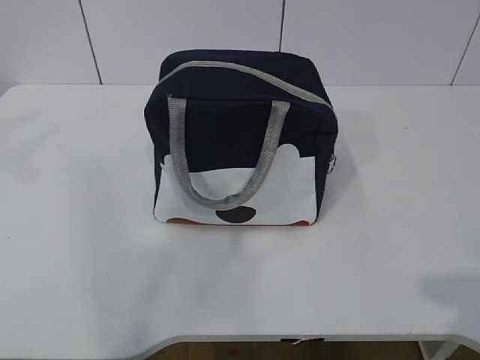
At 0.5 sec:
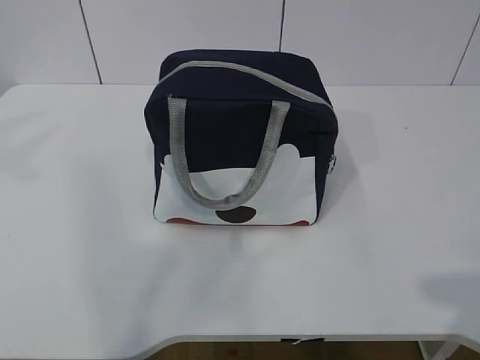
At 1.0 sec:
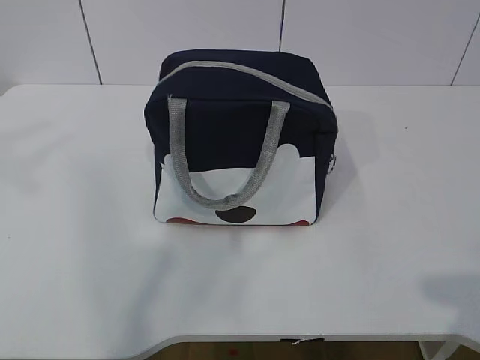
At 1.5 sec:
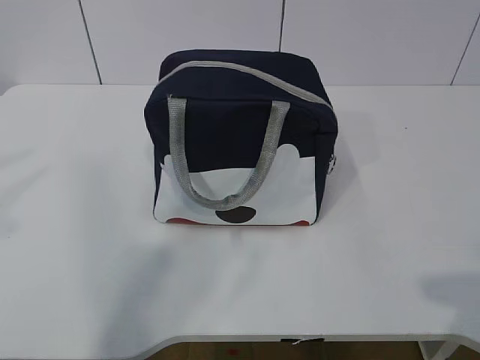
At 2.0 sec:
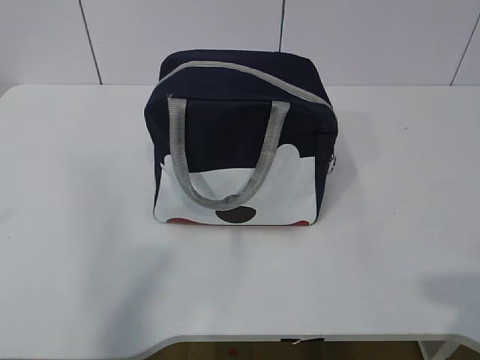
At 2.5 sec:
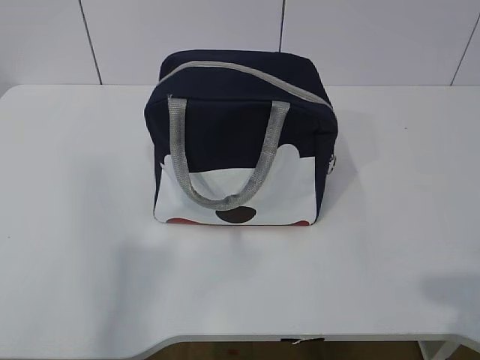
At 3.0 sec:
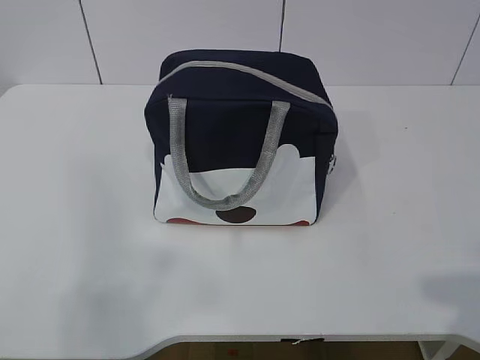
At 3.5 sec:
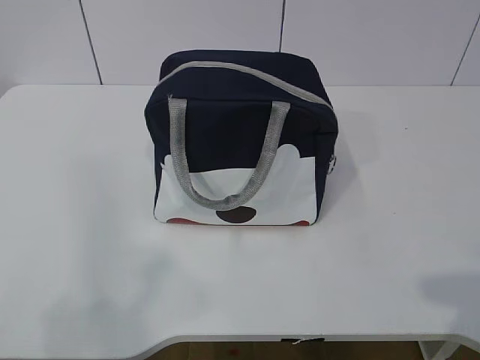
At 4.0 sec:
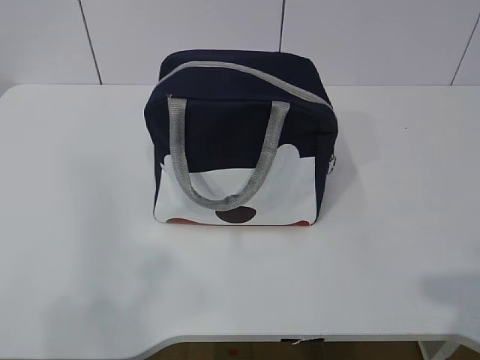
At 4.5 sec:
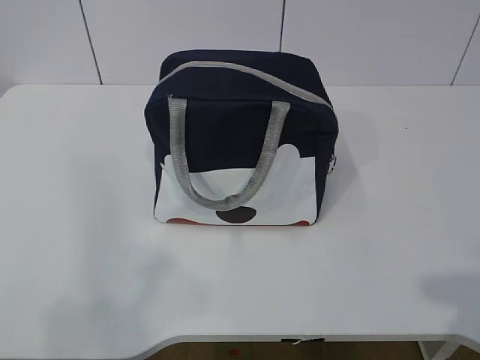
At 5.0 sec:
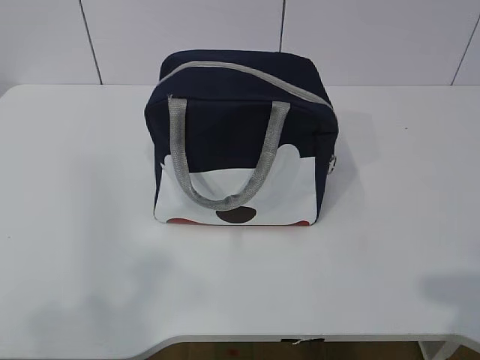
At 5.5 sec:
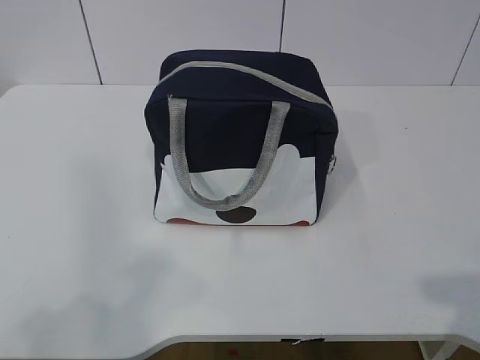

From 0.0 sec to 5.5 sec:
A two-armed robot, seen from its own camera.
From 2.0 sec to 3.5 sec: The left gripper moves backward and downward, approximately 10 cm.
